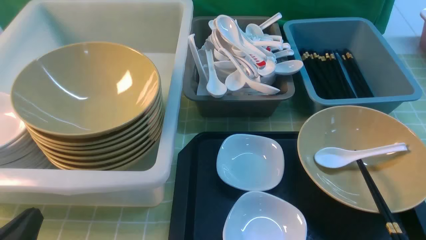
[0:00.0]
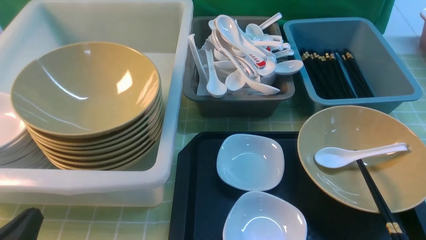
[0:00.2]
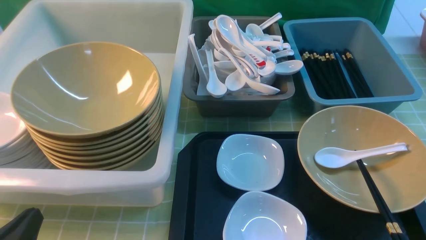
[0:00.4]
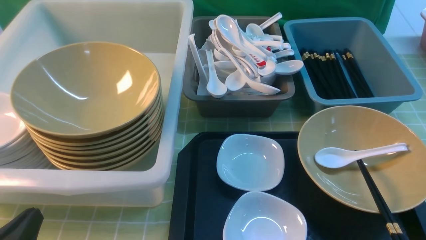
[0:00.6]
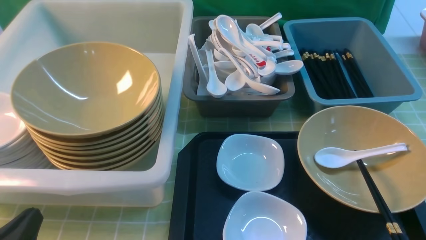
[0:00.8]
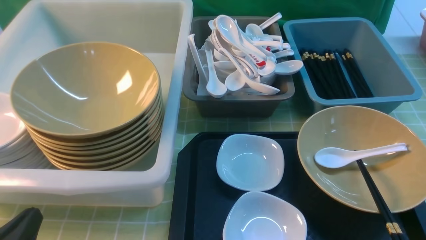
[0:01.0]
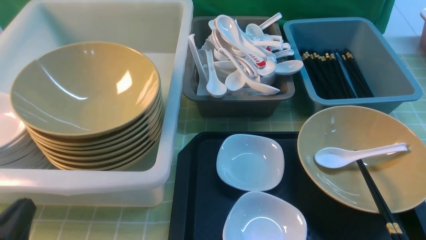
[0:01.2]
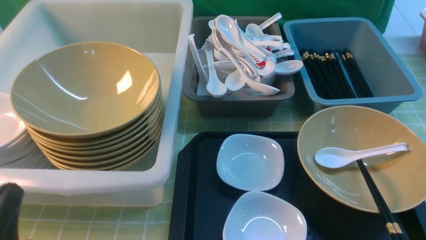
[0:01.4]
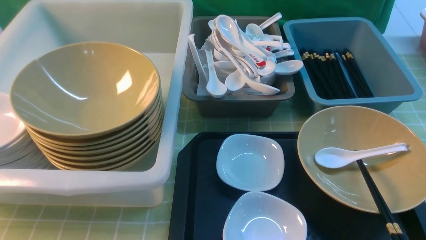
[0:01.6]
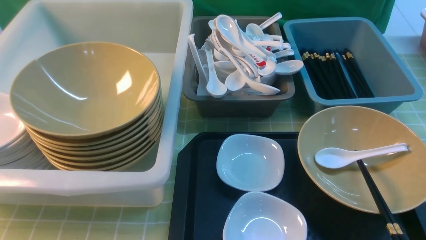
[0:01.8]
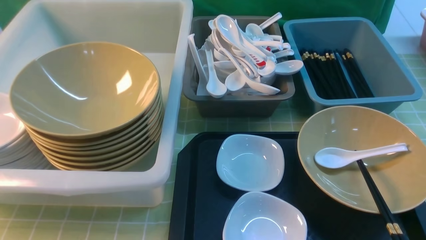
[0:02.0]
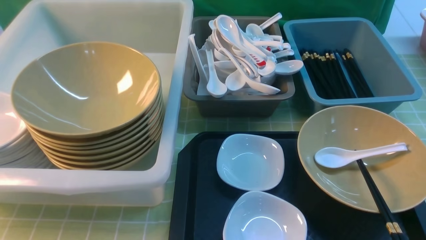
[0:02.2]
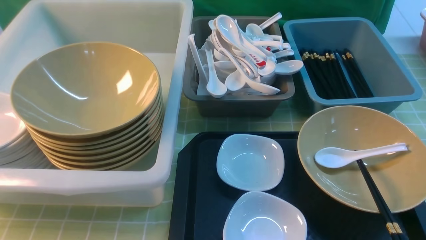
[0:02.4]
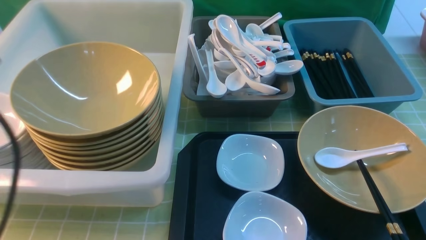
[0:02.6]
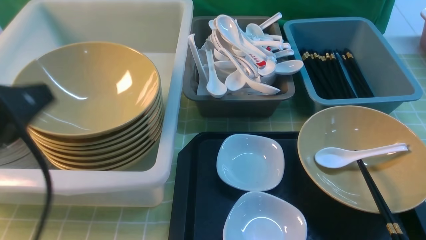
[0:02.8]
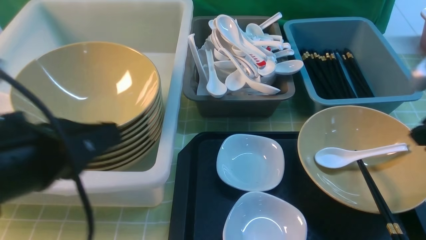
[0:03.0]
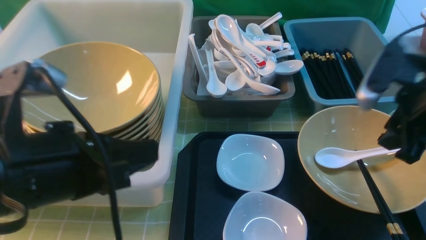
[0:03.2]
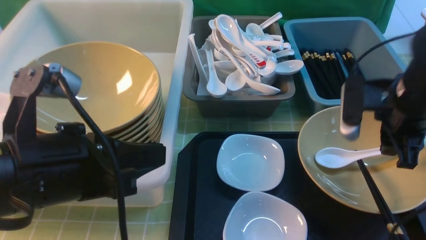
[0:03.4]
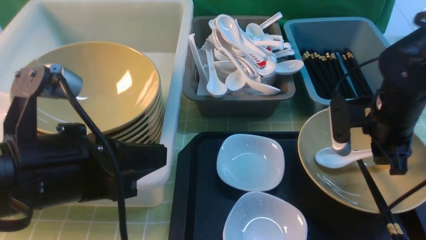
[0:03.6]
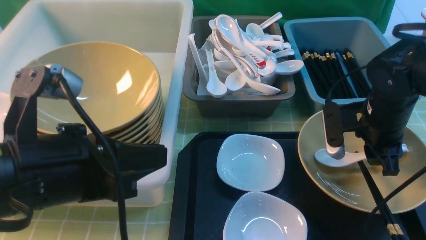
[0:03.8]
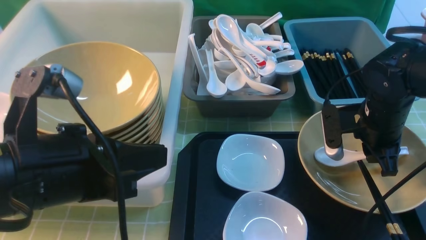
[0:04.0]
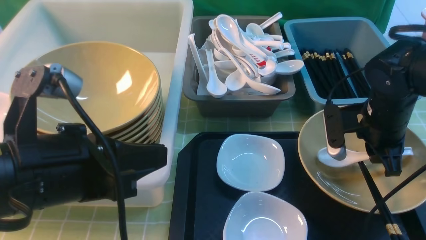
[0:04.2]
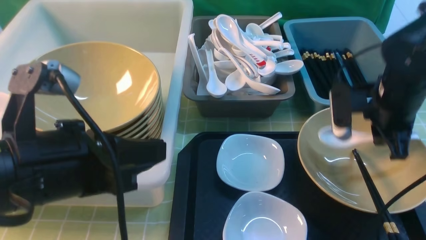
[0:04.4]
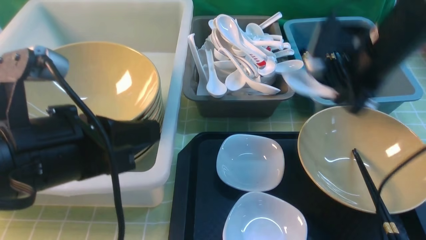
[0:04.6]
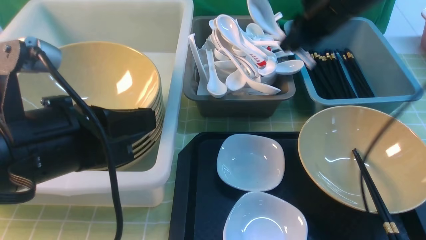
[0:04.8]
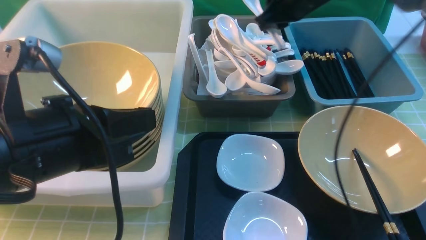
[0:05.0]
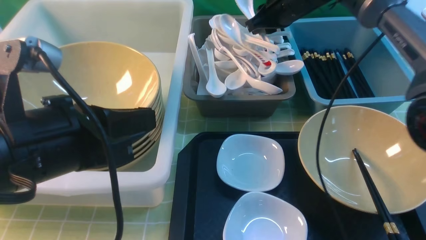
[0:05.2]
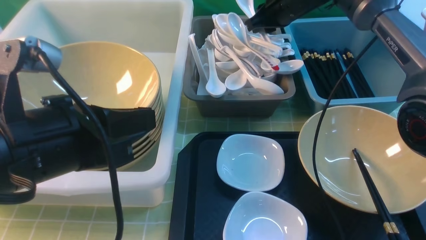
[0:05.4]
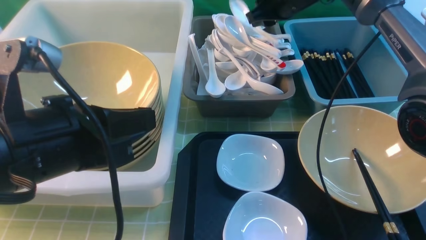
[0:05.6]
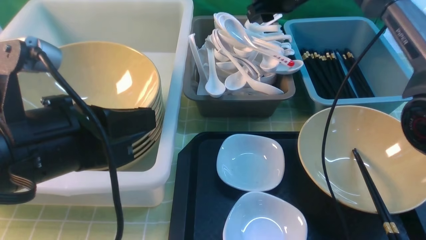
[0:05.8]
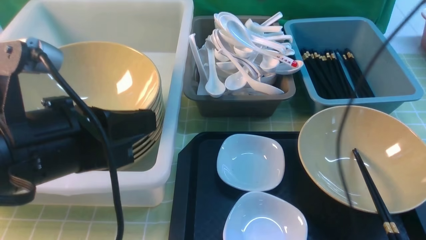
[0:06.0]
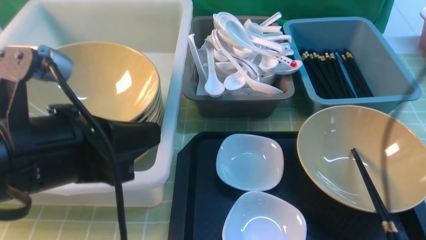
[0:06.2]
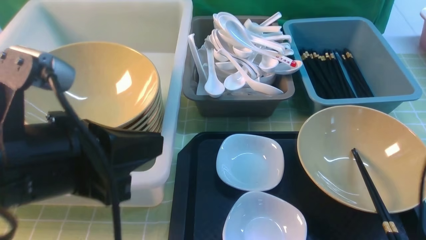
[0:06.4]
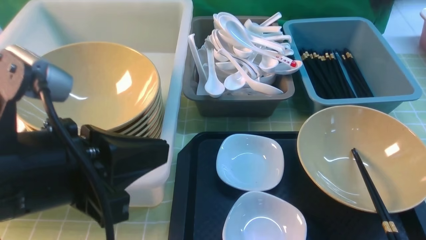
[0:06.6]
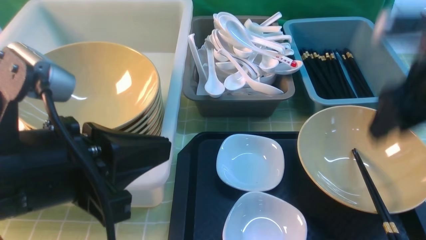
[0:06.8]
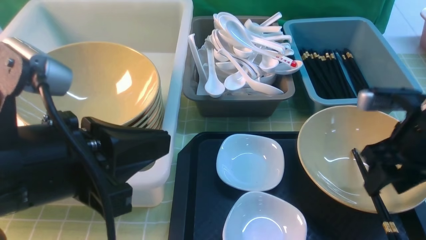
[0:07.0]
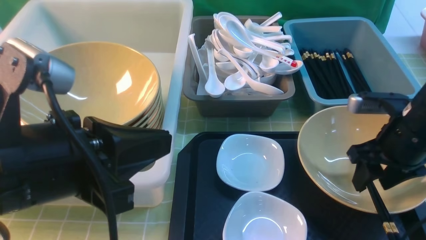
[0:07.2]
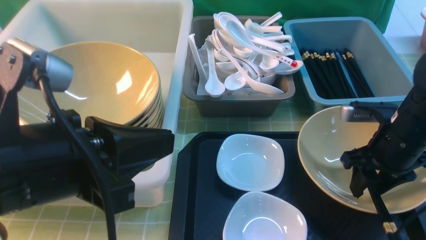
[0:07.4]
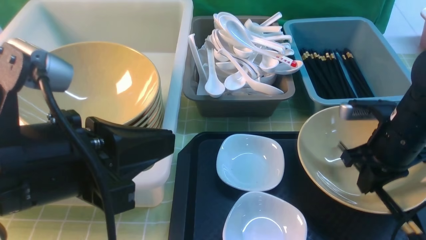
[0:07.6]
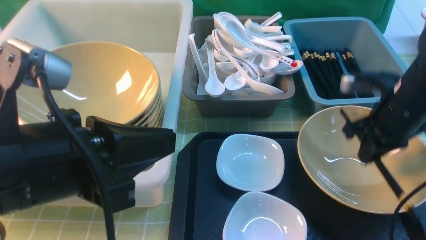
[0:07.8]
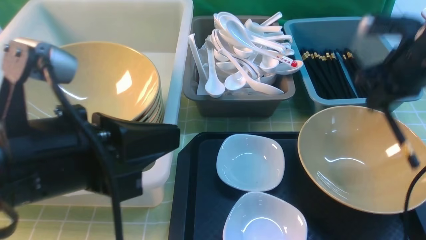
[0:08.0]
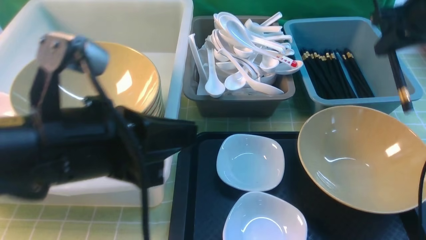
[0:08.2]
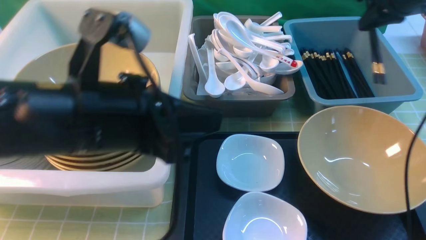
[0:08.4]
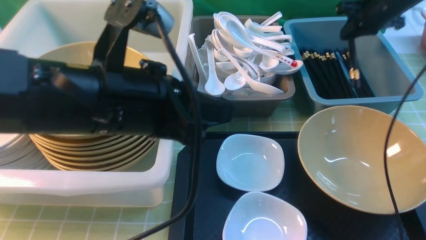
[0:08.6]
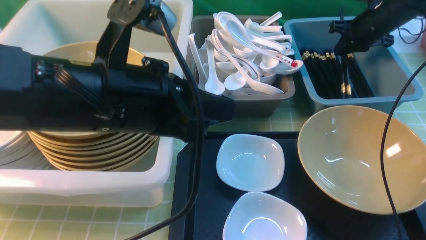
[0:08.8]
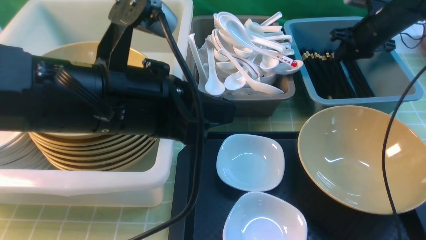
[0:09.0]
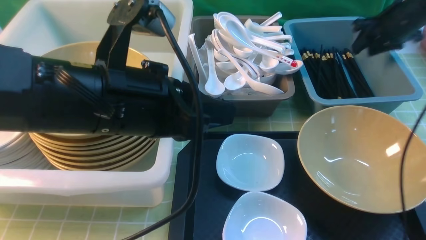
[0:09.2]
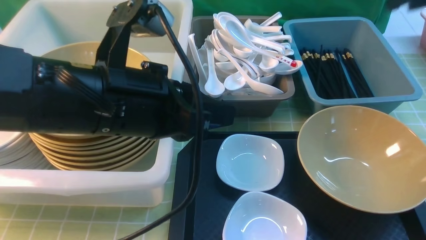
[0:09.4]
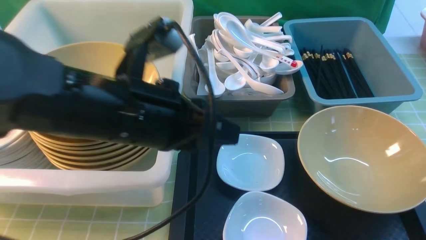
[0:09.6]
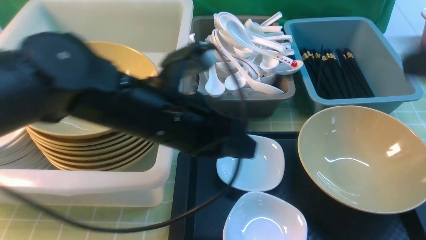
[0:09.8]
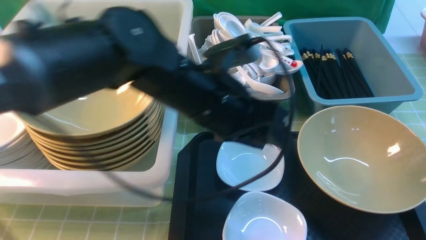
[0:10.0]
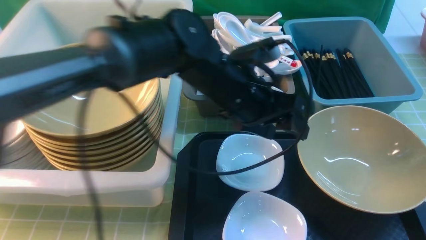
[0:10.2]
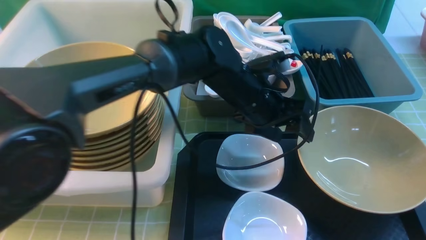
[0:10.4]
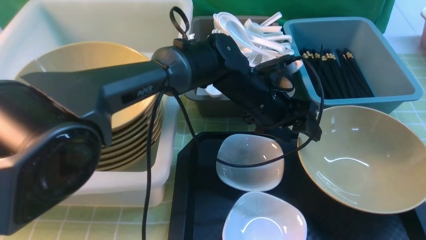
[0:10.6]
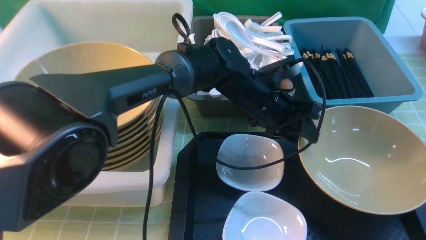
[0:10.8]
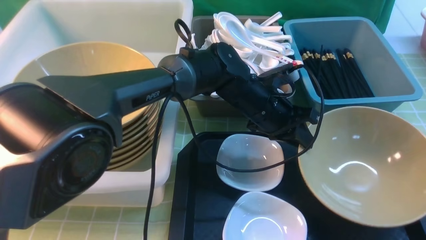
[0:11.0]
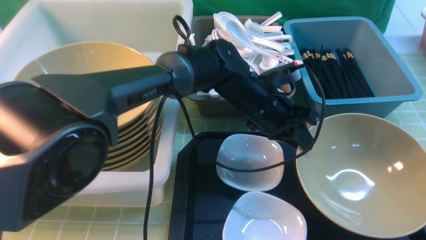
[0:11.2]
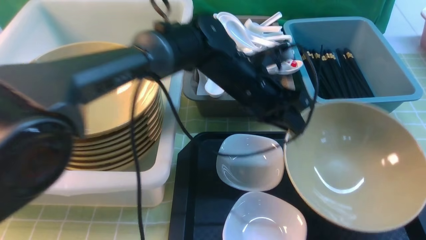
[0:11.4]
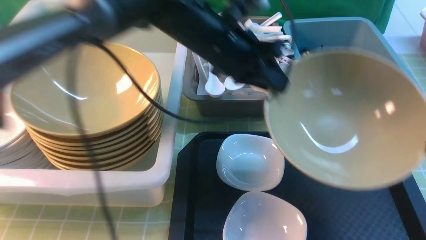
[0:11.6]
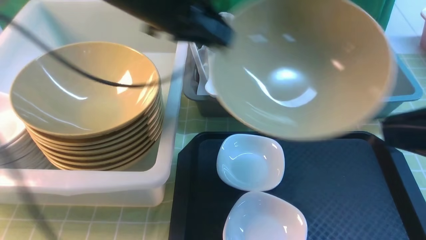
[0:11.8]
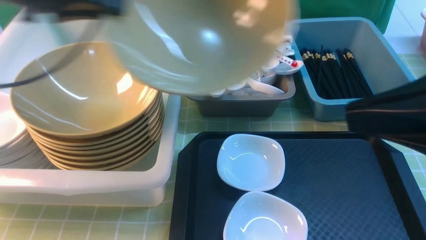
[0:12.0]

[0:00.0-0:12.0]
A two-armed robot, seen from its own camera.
Task of the whole recording: on green table put chopsticks spoon bowls plates into blue grey white boxes.
Step, 0:00.0 to 0:04.2: use the right arm to grab the soup spoon in the middle.
Step, 0:04.4 to 0:05.8: use the right arm to put the soup spoon into the small storage box in the middle.
Step, 0:06.2 to 0:08.0: use the right arm to grab the chopsticks.
Step, 0:08.2 to 0:09.8: use the right arm to put the chopsticks into the small storage box on the right.
Step, 0:10.0 to 0:11.2: use the left arm to grab the yellow noodle bowl on the left.
0:00.0 to 0:01.6: The left gripper shifts some 5 cm upward.
0:01.6 to 0:03.0: The left gripper shifts some 15 cm upward, forward and to the right, while the right gripper goes roughly 20 cm forward and upward.
0:03.0 to 0:04.4: The right gripper goes some 15 cm forward, downward and to the left.
0:04.4 to 0:06.0: The right gripper moves upward and forward, some 20 cm, and opens its fingers.
0:06.0 to 0:07.6: The right gripper shifts roughly 25 cm downward and backward, and closes up.
0:07.6 to 0:09.0: The left gripper moves forward and to the right, about 10 cm. The right gripper travels forward by about 20 cm.
0:09.0 to 0:10.4: The left gripper is displaced forward, to the right and downward by approximately 25 cm, and opens up. The right gripper moves backward, about 50 cm.
0:10.4 to 0:12.0: The right gripper is displaced forward and to the left by roughly 10 cm, and closes. Meanwhile the left gripper shifts roughly 35 cm to the left and upward, and closes its fingers.

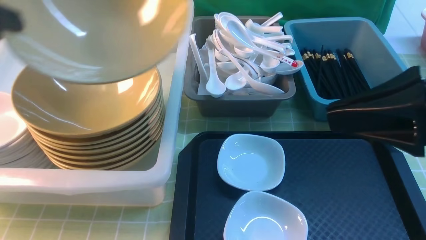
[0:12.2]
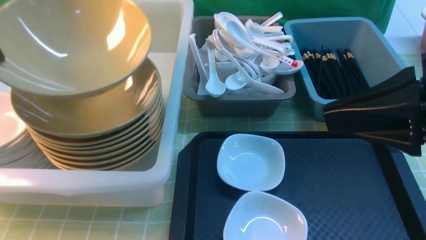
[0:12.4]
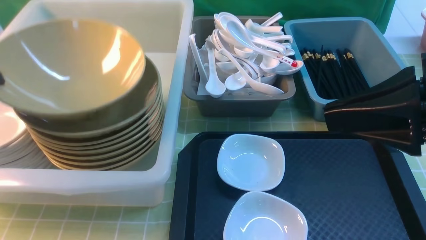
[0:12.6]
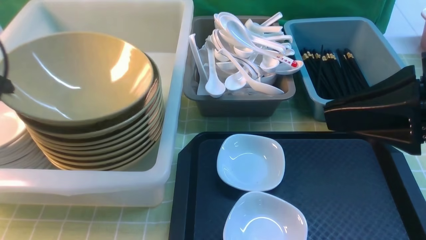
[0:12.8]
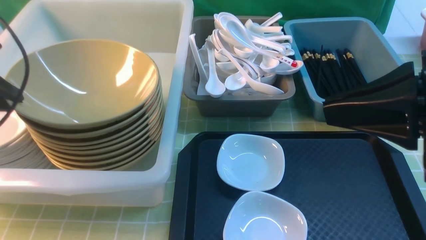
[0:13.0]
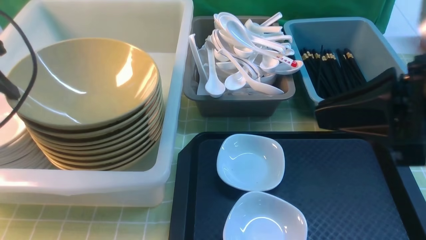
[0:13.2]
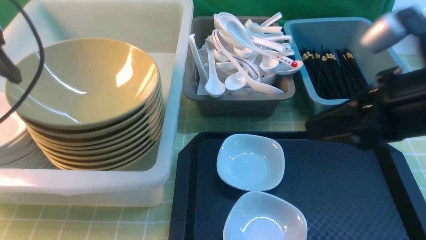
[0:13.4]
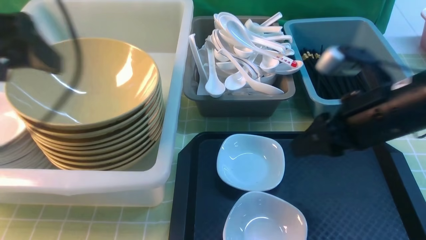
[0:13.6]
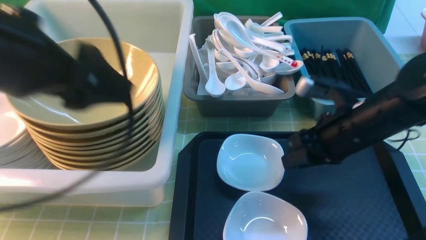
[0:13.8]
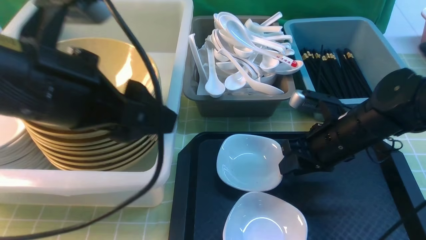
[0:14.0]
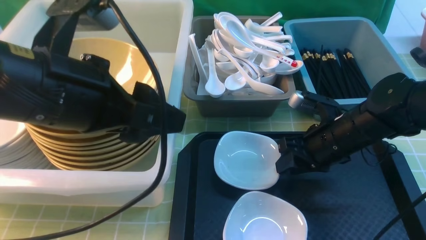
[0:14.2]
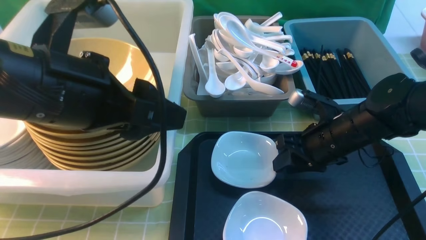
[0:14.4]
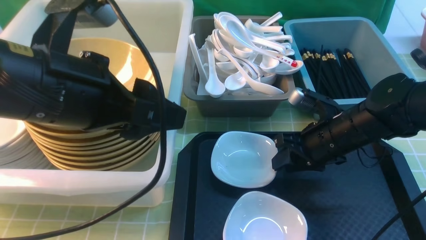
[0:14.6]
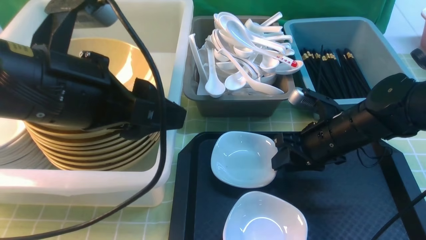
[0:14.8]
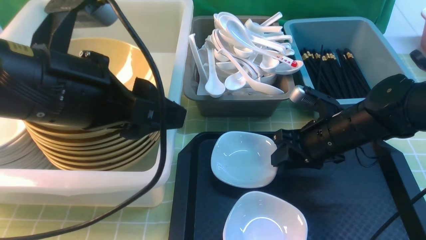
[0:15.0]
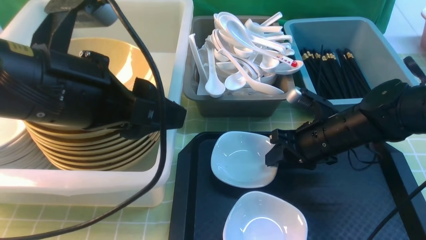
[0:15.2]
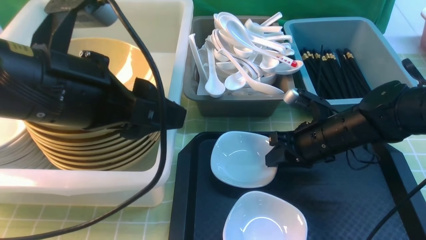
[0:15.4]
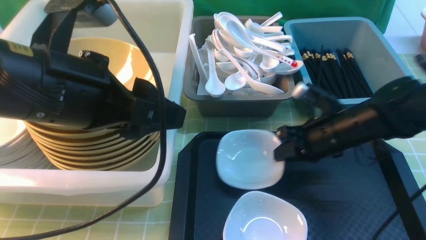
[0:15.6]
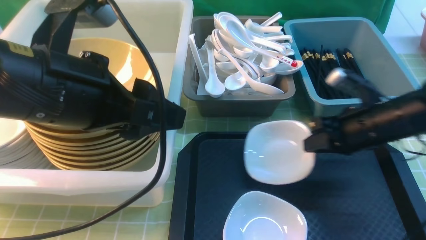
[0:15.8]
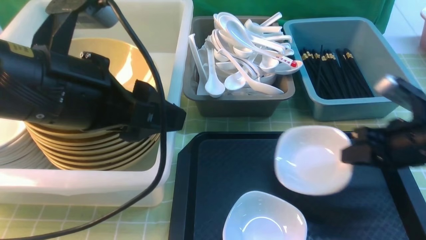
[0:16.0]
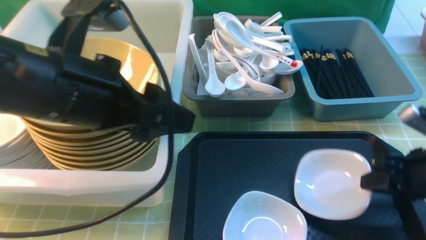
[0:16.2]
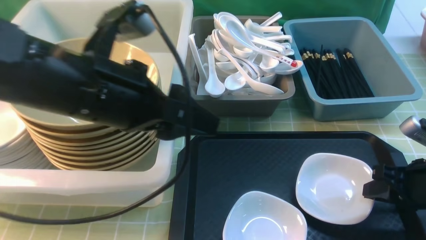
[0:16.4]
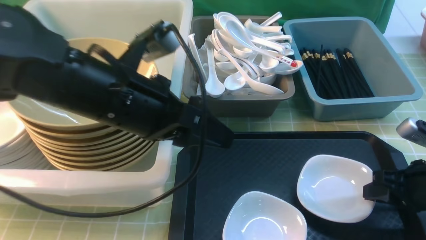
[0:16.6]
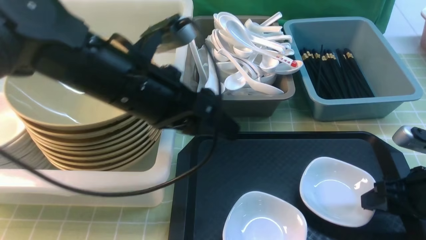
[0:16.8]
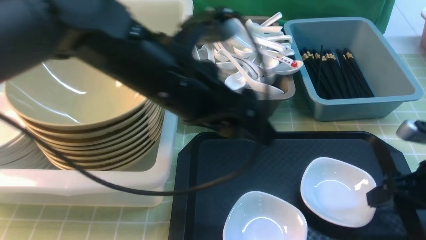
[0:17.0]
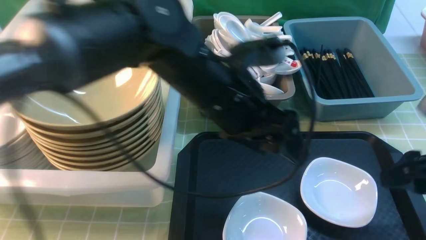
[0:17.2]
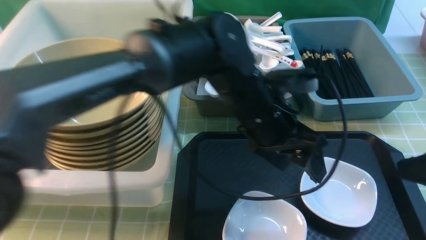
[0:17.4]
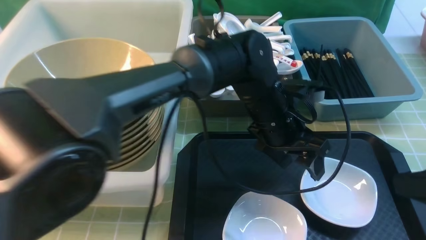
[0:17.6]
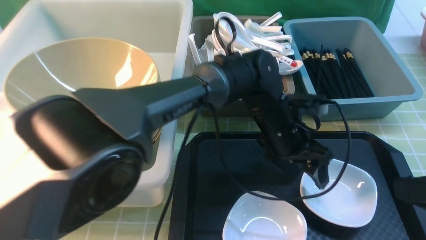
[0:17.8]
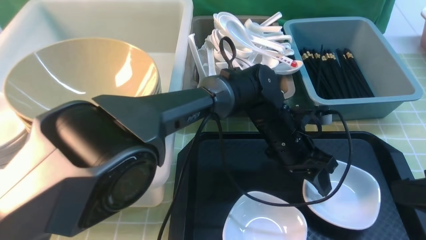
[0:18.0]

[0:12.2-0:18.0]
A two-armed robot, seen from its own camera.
Task of the whole recording: on green table put chopsticks spoon bowls plates into blue grey white boxes.
Step, 0:12.2 to 0:13.4: use the left arm to put the noodle bowl into the large storage box on the left.
Step, 0:13.6 to 0:15.8: use the right arm to grab the plate.
Step, 0:16.0 to 0:17.0: use the right arm to put the plate on the tray.
0:12.2 to 0:13.6: The left gripper travels to the right by approximately 10 cm, and opens. Meanwhile the right gripper moves downward and forward, about 15 cm, and opens.
0:13.6 to 0:15.0: The left gripper goes roughly 10 cm to the right, while the right gripper shifts about 15 cm downward and forward.
0:15.0 to 0:16.6: The left gripper moves some 5 cm. Meanwhile the right gripper moves to the right and backward, some 15 cm.
0:16.6 to 0:18.0: The right gripper is displaced upward and backward by some 15 cm, and opens; the left gripper moves to the right, downward and forward, about 30 cm.
